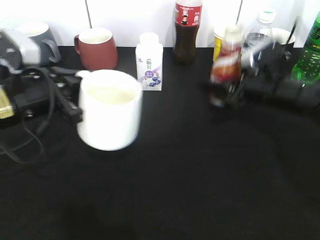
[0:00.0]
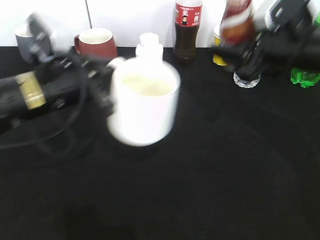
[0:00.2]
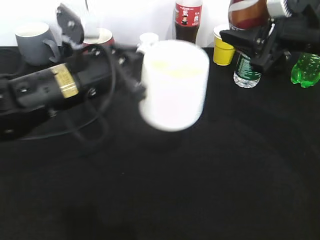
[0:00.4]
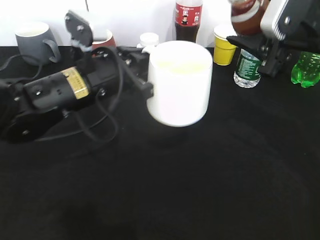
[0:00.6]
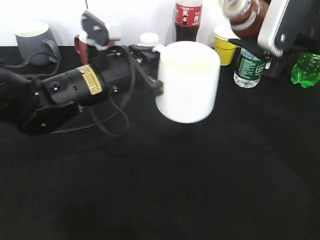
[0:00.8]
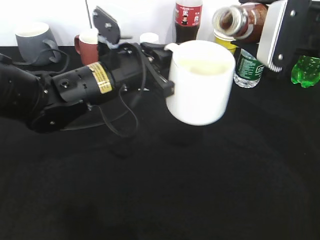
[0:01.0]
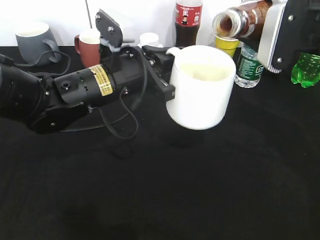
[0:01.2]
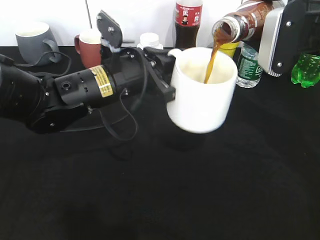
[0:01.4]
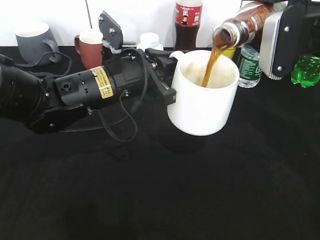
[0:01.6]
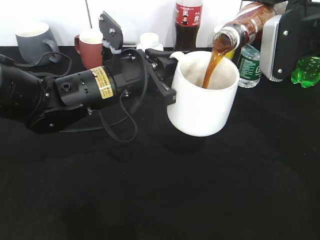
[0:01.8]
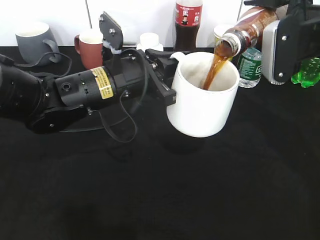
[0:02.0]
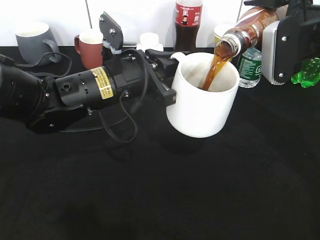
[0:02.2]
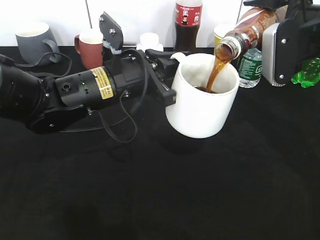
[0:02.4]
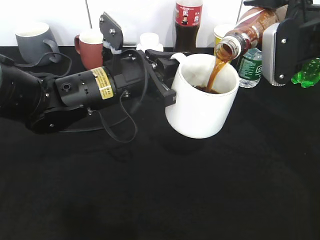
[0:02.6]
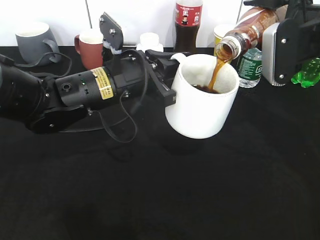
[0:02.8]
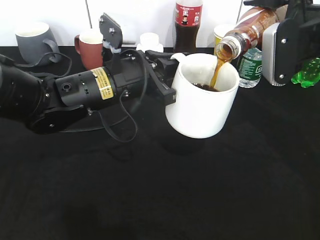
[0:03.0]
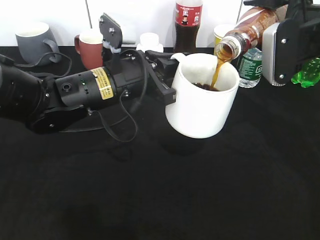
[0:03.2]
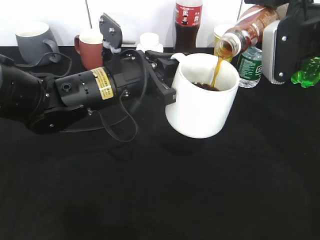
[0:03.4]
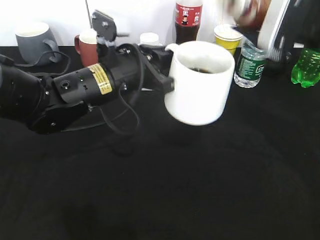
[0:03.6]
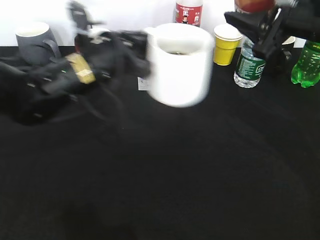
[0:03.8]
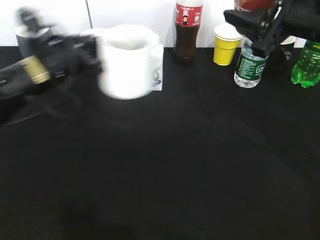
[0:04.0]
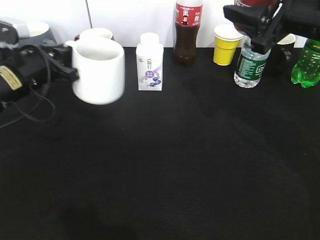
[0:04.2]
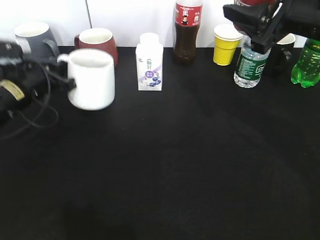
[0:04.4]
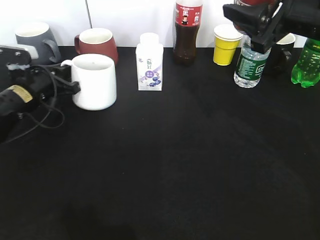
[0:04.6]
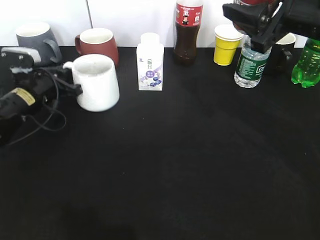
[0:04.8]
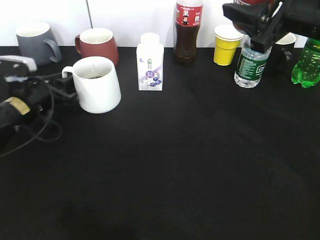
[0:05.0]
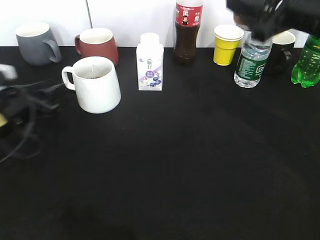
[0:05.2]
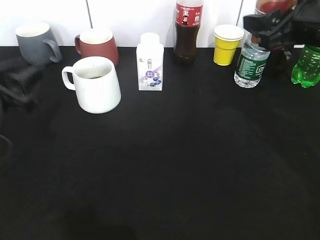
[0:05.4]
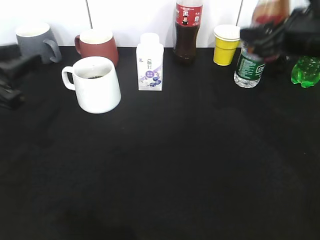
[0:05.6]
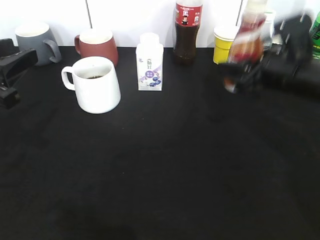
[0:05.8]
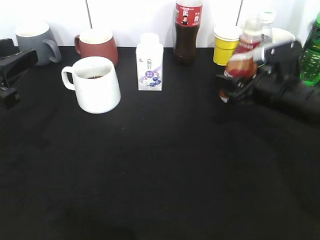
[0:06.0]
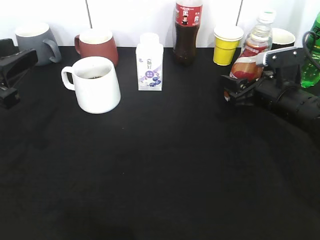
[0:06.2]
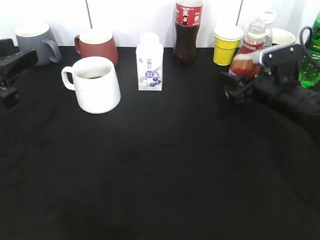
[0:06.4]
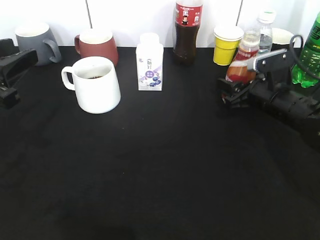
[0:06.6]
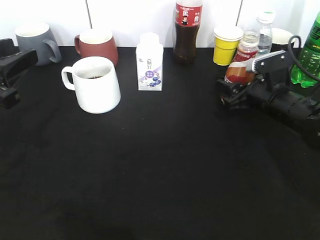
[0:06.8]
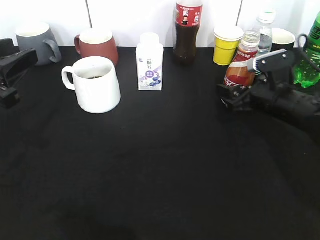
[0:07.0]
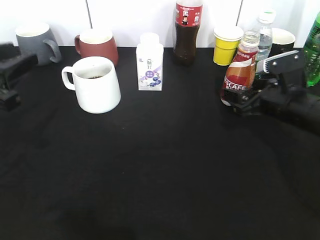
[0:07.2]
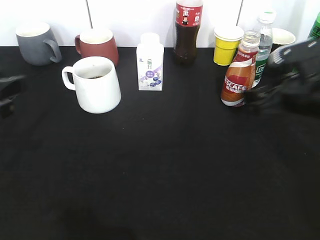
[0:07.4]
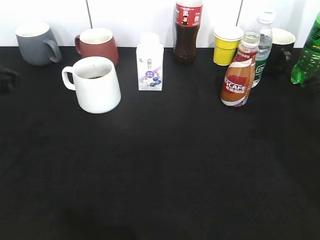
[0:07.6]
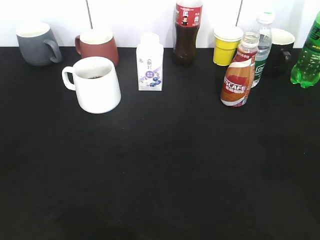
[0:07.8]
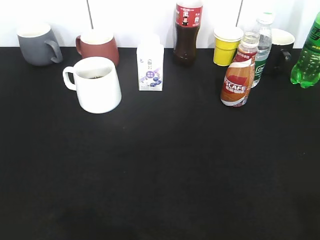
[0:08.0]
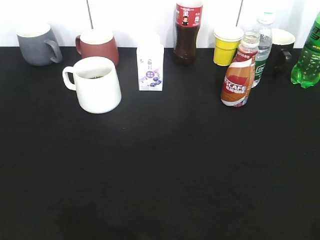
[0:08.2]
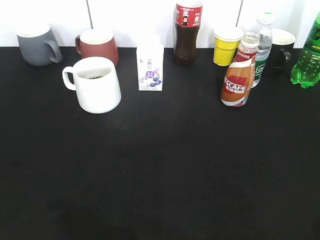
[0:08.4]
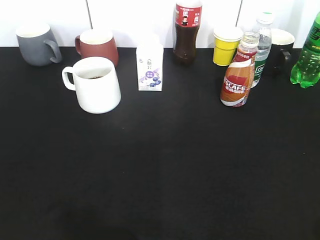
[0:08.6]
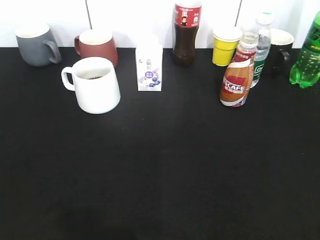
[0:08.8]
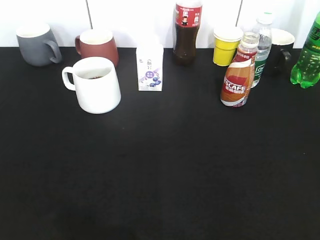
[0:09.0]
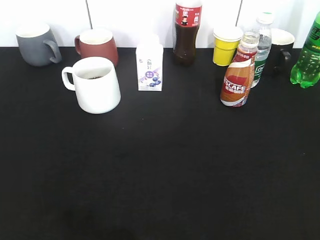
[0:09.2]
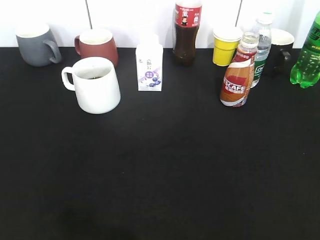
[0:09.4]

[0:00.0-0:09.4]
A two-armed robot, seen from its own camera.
Step, 0.0 to 3.6 s: Pour the coffee from bottle to cup with right gripper.
Step, 3.8 to 5.0 s: Place the white cup on the table with left gripper.
Step, 5.4 to 7.2 s: Place the coffee bottle on the table with right gripper.
0.0 to 1.6 s: The right gripper travels upward by about 10 cm. Meanwhile the left gripper travels to the right by approximately 15 cm.
1.6 to 3.2 s: The grippers stay close to where they were, moving slightly.
3.2 to 4.8 s: The left gripper moves to the left, downward and forward, approximately 20 cm.
4.8 to 6.2 s: The left gripper is displaced backward and upward by roughly 20 cm, and opens up, while the right gripper moves downward, some 15 cm.
6.2 to 7.8 s: The right gripper heads upward and backward, covering about 30 cm, and opens, while the left gripper heads upward and backward, covering some 15 cm.
7.8 to 9.4 s: The two grippers go approximately 15 cm backward.

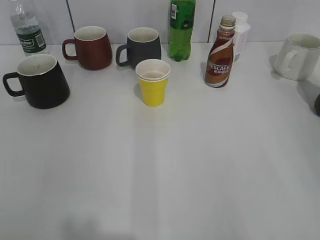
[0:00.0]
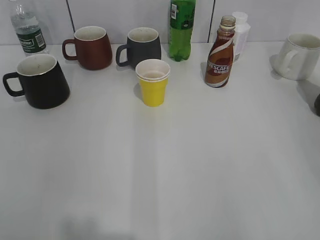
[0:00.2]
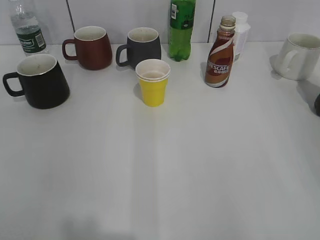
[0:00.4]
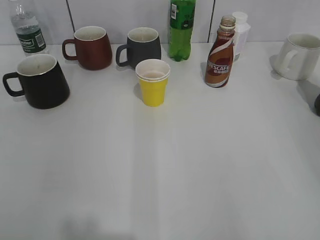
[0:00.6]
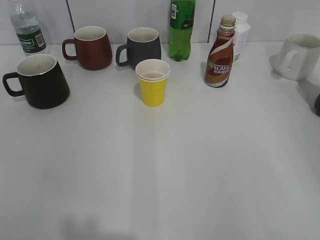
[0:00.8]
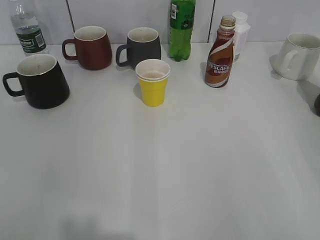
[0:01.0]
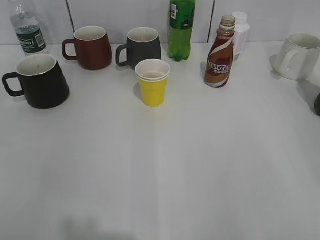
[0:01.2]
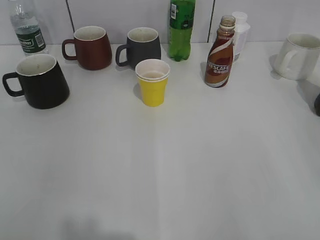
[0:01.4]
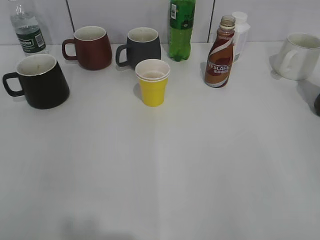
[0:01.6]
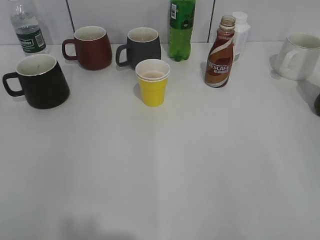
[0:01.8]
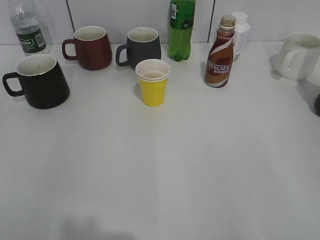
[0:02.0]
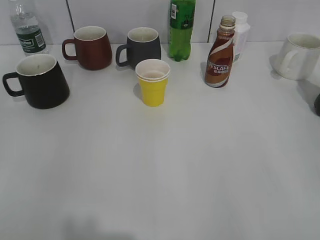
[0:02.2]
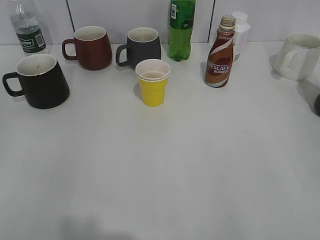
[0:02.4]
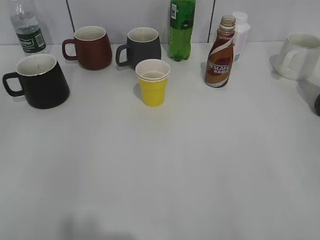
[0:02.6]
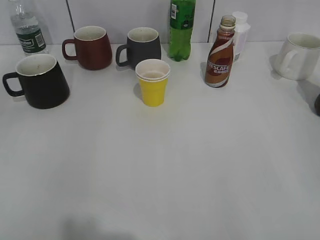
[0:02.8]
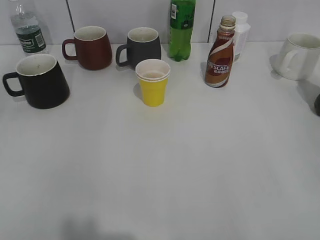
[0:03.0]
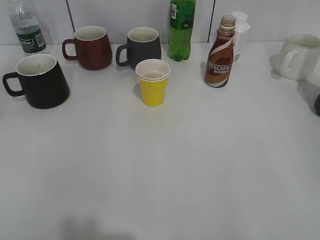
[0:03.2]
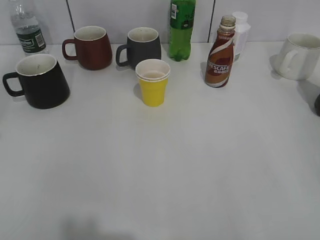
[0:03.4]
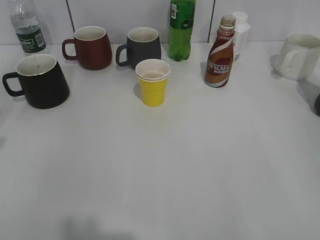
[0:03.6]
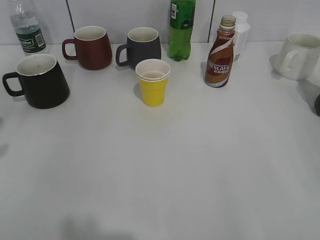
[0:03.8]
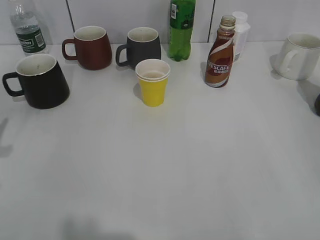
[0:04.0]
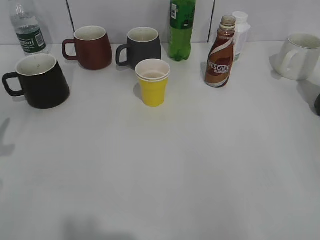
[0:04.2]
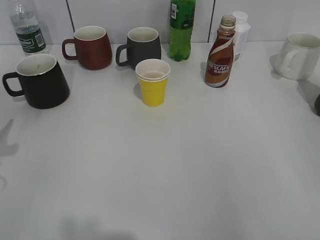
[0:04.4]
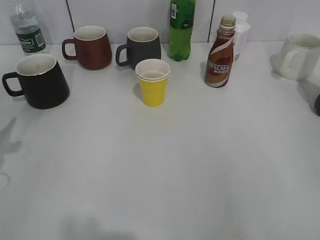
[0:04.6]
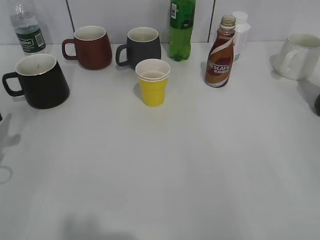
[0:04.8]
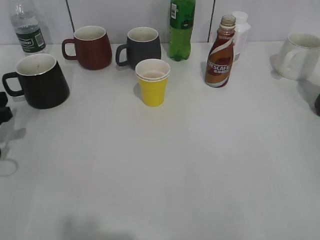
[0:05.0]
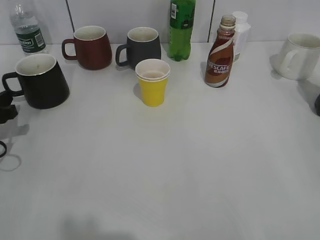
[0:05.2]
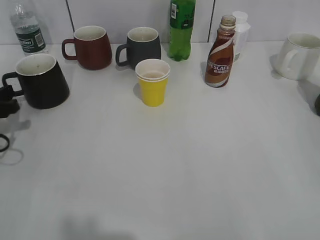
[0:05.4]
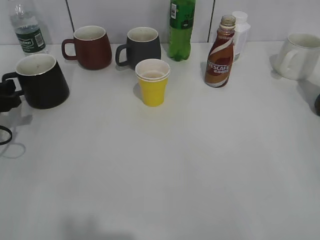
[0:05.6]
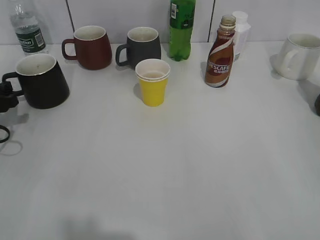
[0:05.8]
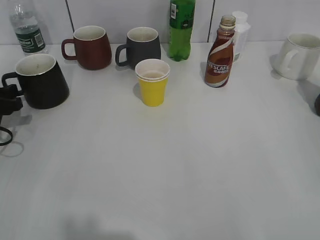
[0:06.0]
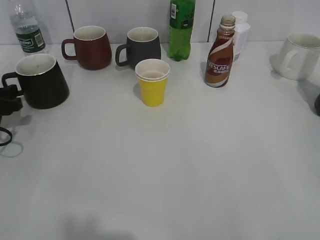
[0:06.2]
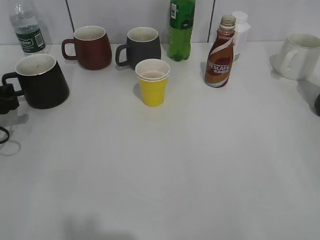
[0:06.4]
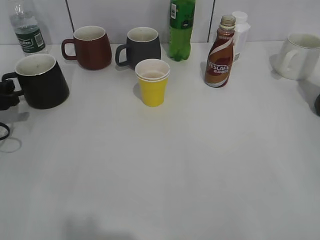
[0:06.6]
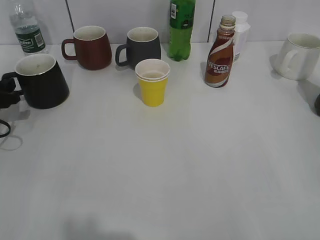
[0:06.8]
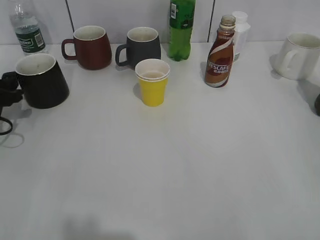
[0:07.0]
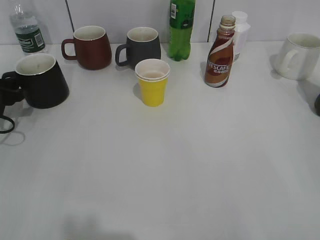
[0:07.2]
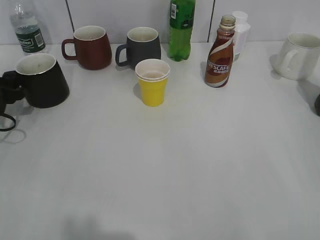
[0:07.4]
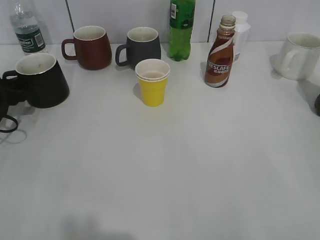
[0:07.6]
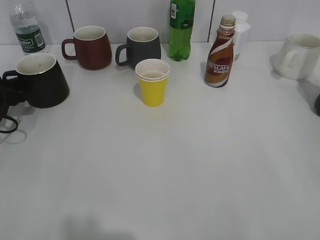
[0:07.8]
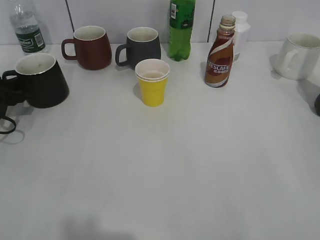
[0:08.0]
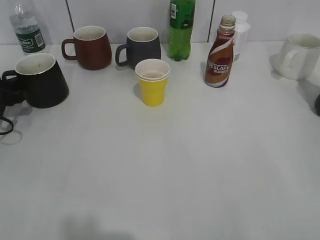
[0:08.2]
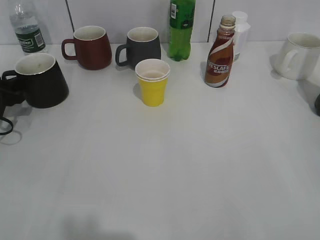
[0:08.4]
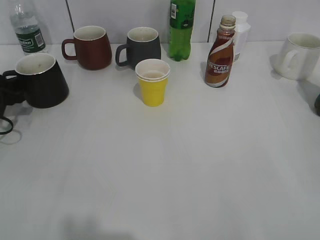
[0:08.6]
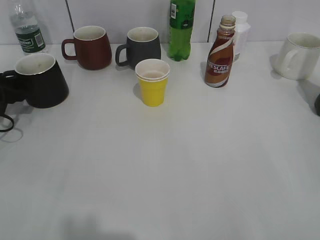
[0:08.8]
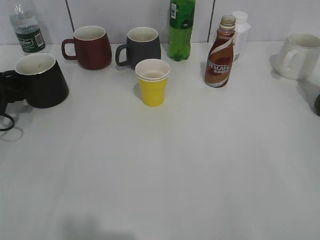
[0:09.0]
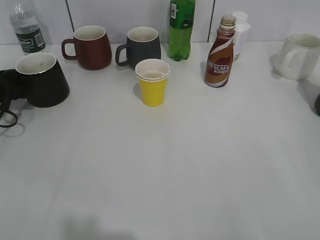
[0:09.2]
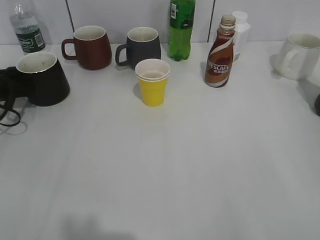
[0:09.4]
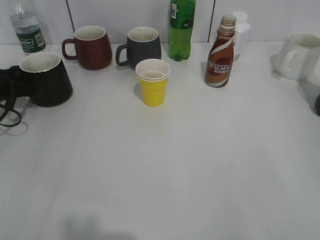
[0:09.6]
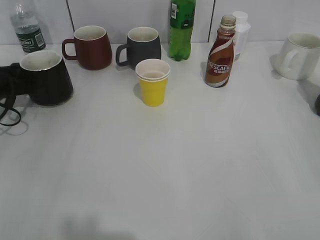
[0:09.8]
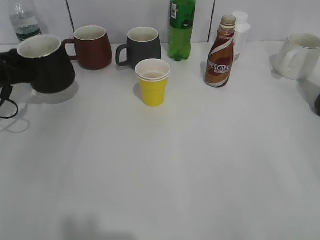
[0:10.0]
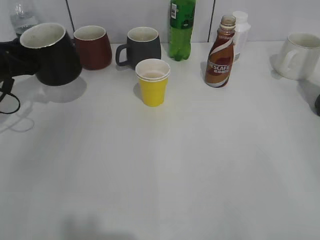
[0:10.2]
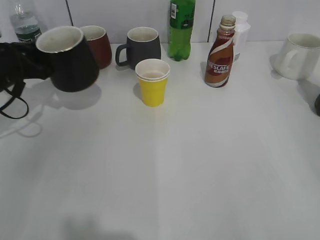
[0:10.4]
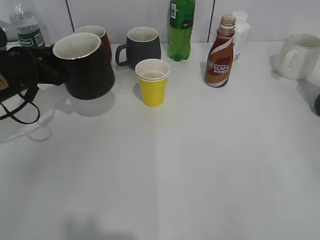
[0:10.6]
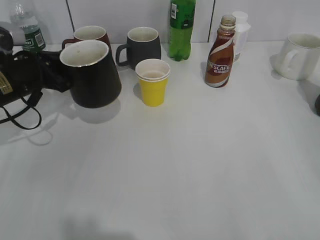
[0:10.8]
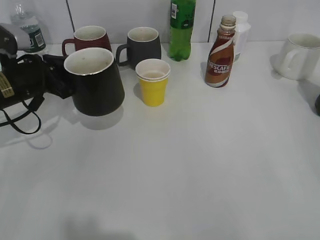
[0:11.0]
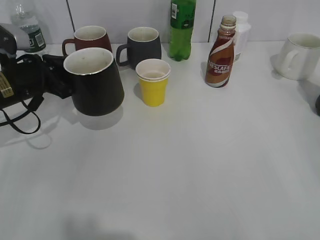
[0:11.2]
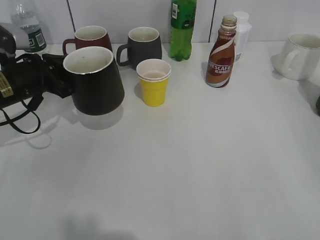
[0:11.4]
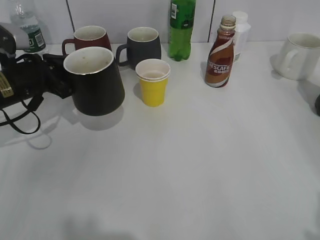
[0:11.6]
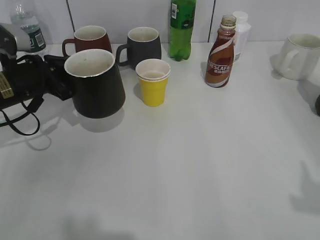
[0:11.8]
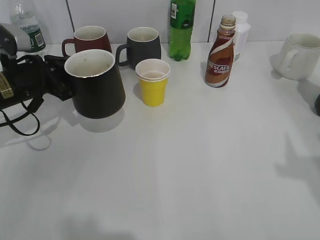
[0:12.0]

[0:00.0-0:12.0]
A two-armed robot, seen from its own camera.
Step, 10.0 to 11.8 s: Lift the black cup with left gripper.
4.4 to 6.0 s: The left gripper heads forward and downward, covering approximately 10 cm.
6.0 to 7.6 s: The grippers move only a little.
9.0 to 10.4 s: The left gripper heads to the right, covering roughly 5 cm, and closes its fingers.
10.4 to 12.0 s: The right gripper travels forward and upward by about 10 cm.

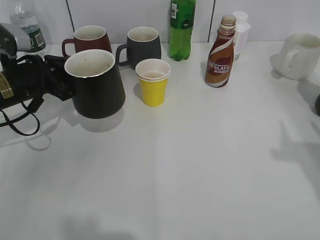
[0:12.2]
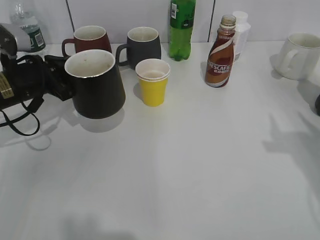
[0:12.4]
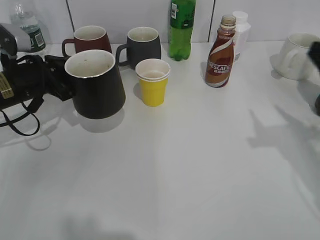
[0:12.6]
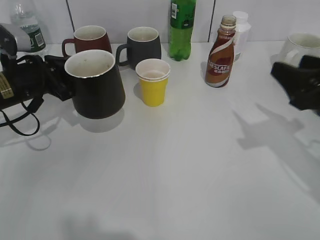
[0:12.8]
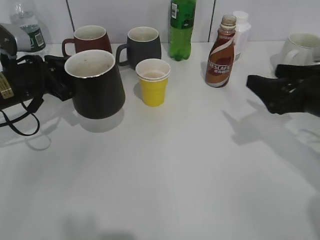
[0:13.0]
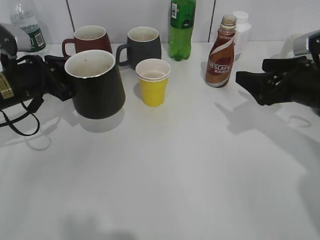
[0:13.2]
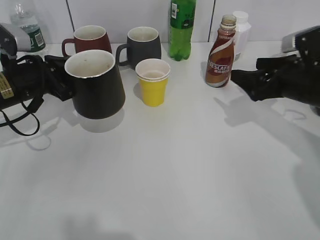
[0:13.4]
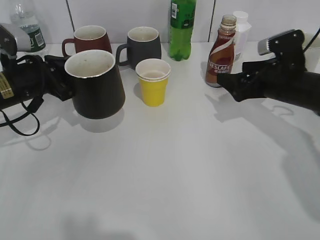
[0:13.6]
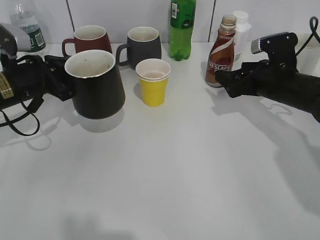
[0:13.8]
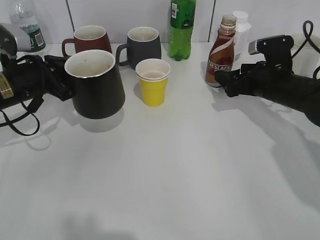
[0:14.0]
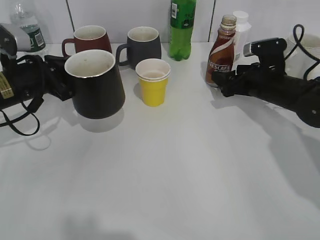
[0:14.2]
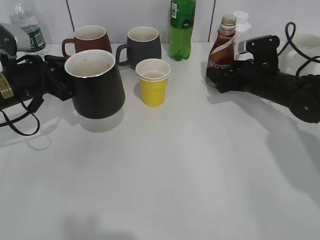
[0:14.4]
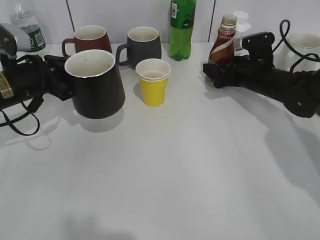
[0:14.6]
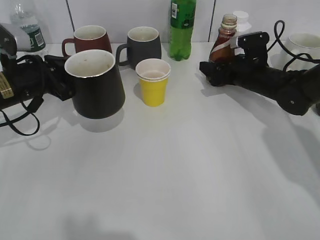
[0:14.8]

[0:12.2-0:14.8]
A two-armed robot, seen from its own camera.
12.2 to 13.4 s: The right gripper moves forward and downward, some 20 cm, and opens.
13.4 to 14.8 s: The right gripper travels forward and downward by approximately 15 cm.
